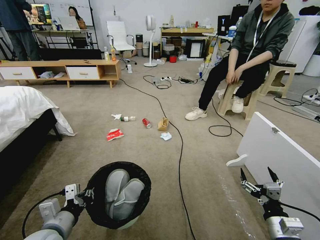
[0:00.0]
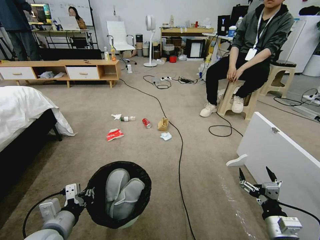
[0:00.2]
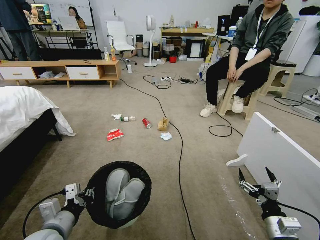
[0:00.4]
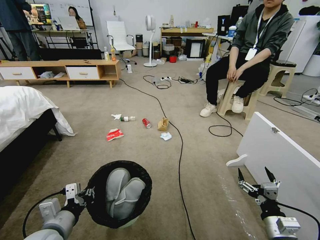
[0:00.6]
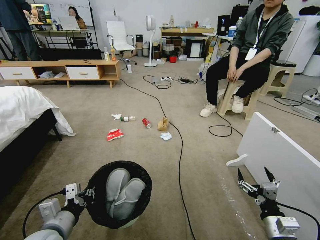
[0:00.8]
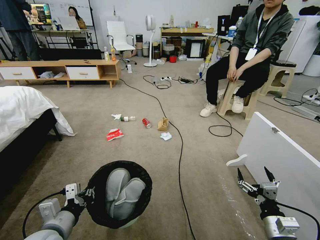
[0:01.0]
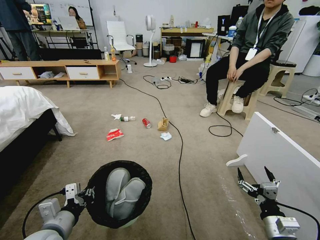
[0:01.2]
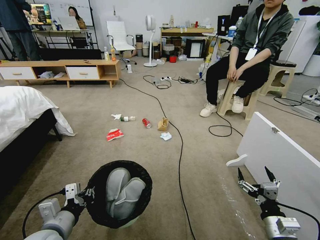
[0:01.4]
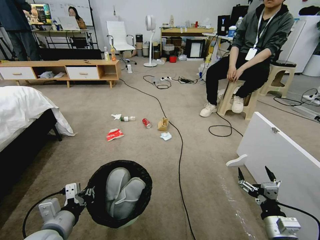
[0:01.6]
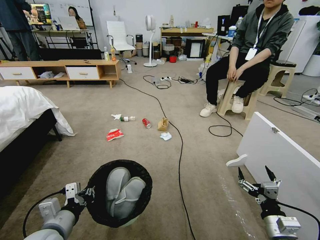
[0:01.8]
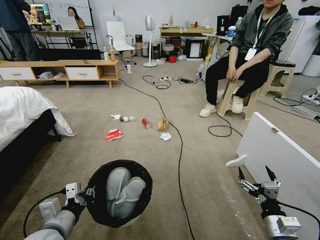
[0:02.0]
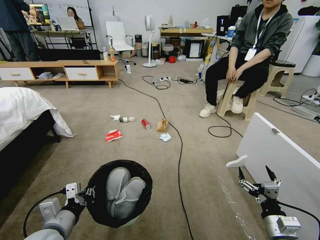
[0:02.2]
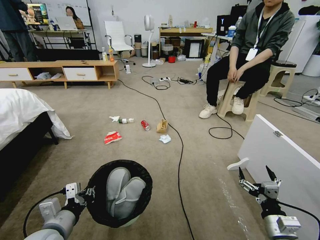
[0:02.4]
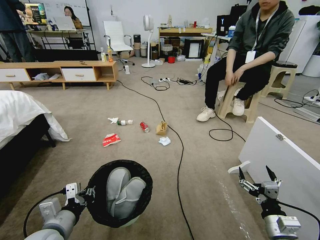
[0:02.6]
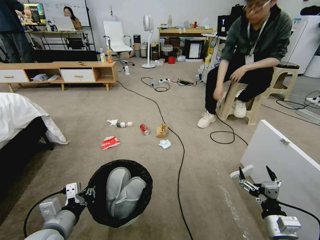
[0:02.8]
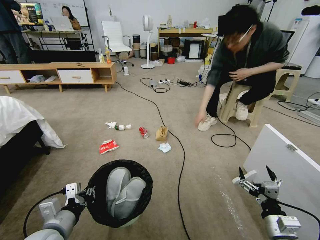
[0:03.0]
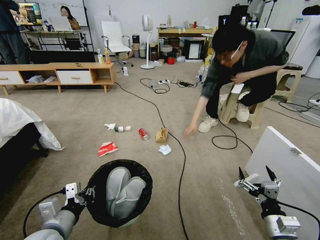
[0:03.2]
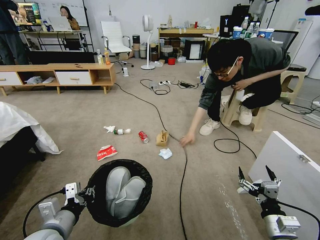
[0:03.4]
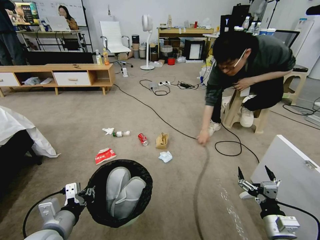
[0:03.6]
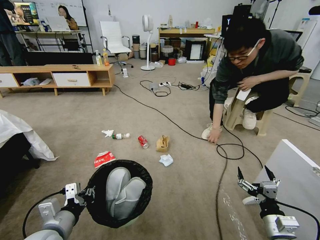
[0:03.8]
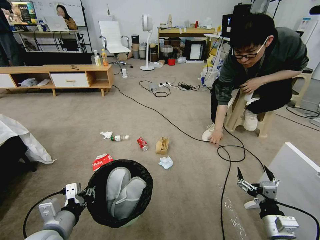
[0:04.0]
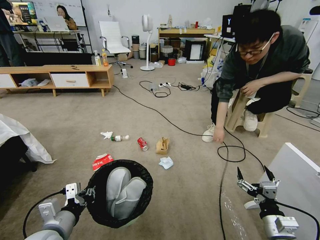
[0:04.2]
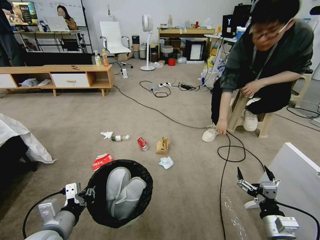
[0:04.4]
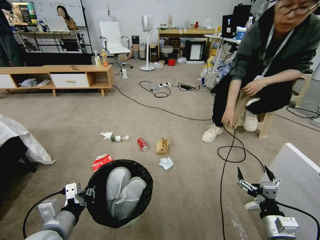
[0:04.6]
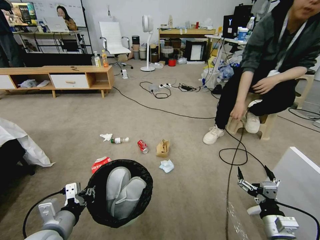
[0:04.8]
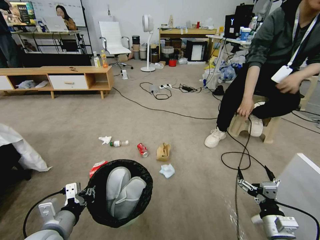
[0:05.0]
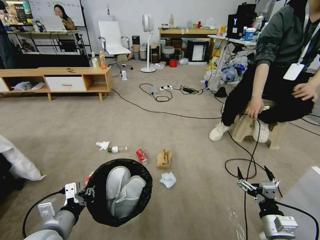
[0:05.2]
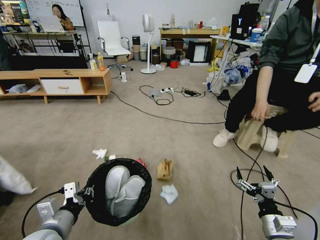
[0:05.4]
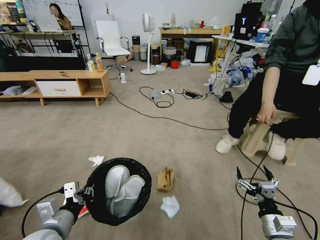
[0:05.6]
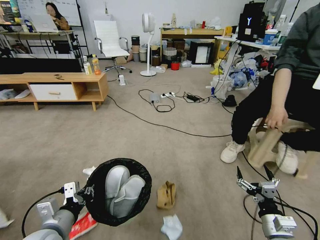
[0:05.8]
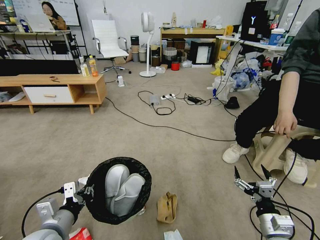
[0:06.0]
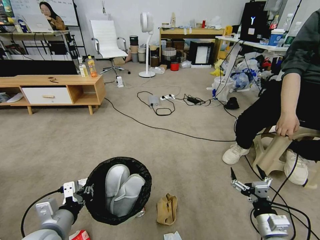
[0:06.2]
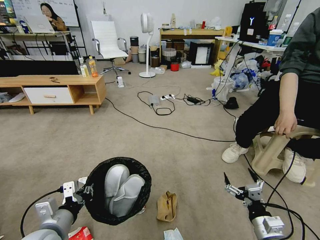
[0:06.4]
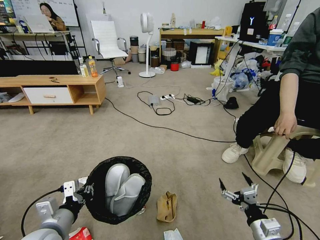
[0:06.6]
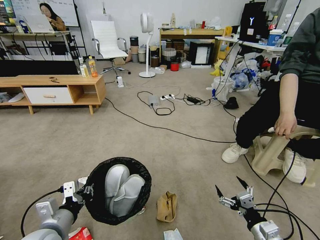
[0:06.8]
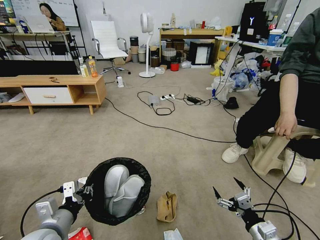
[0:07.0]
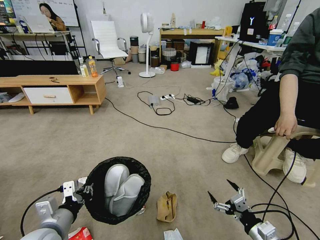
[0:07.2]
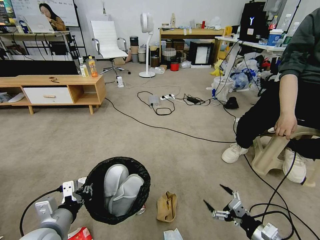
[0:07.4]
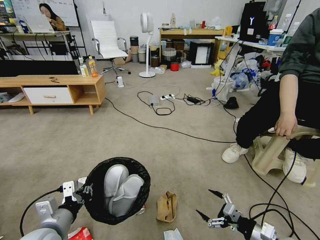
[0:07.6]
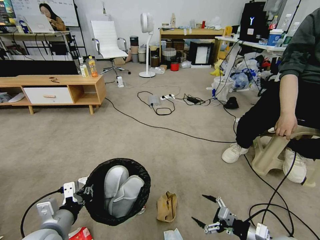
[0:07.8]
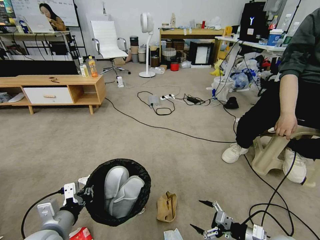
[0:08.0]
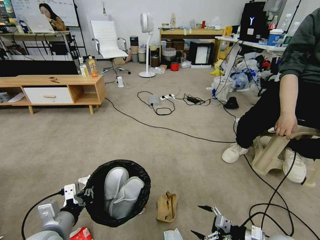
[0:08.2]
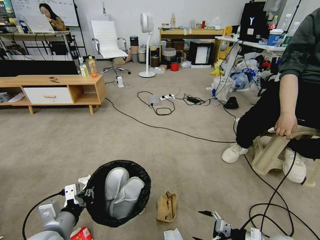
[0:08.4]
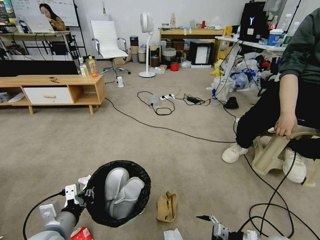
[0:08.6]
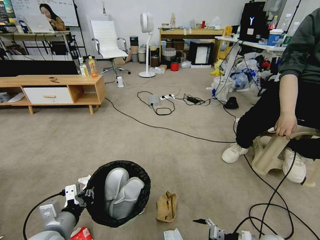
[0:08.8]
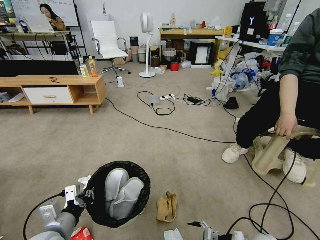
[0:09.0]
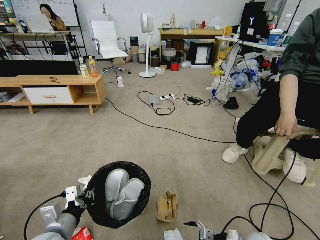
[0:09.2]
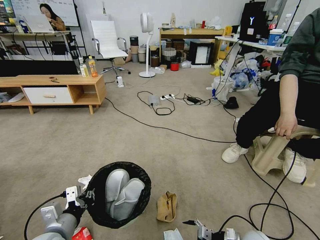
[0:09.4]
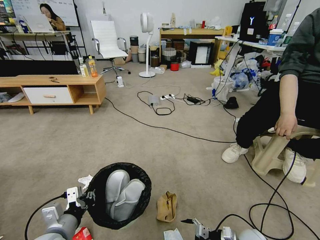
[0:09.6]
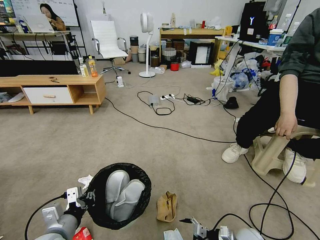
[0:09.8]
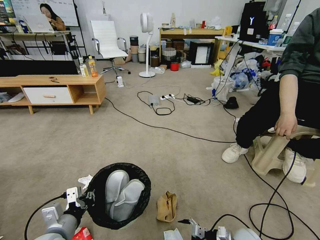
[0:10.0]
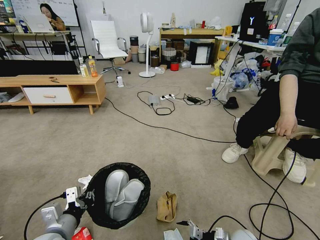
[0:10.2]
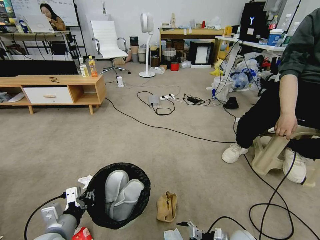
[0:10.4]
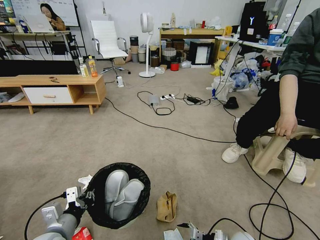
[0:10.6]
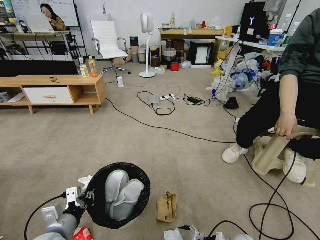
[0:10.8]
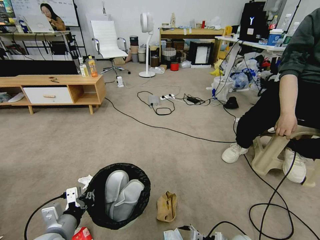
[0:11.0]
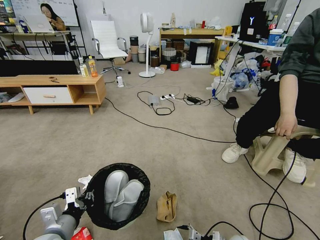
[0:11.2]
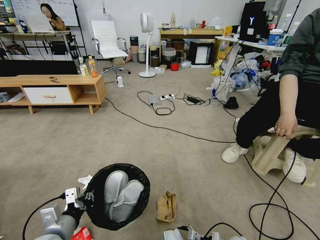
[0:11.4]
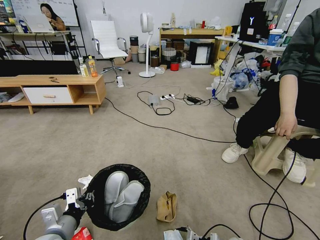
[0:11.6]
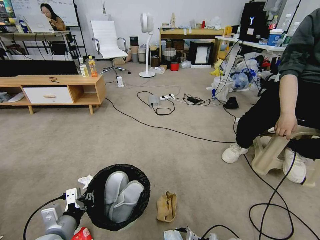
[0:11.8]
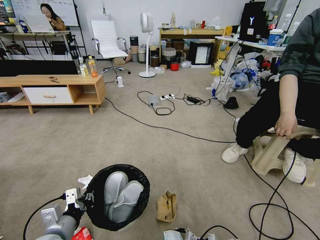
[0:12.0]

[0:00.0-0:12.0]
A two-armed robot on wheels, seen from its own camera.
Task of the whole recording: Pick up the trash bin and place the garbage on the floor into it.
0:07.6 to 0:09.0: The right gripper is displaced downward by about 10 cm.
0:09.0 to 0:10.4: The right gripper heads downward, covering approximately 5 cm.
0:10.4 to 0:12.0: The right gripper moves downward, some 5 cm.

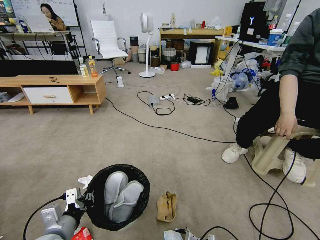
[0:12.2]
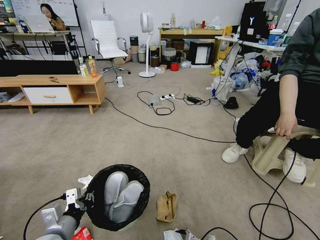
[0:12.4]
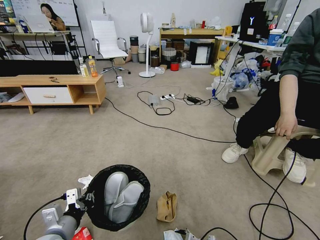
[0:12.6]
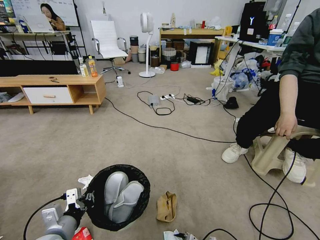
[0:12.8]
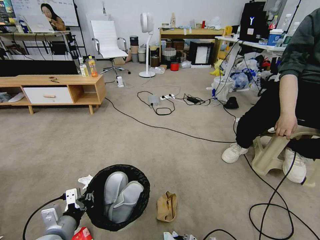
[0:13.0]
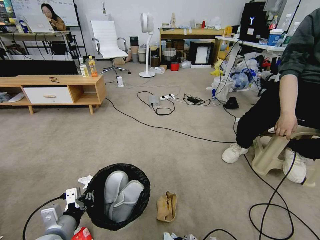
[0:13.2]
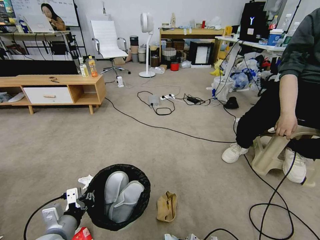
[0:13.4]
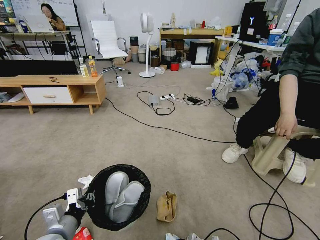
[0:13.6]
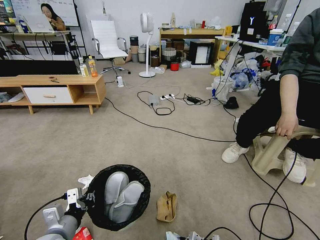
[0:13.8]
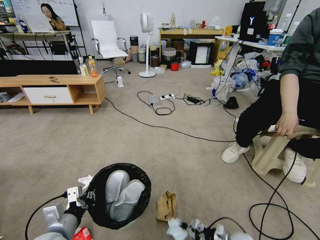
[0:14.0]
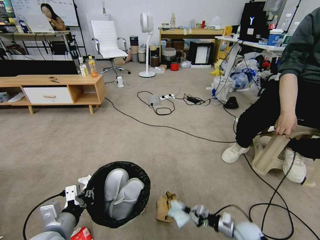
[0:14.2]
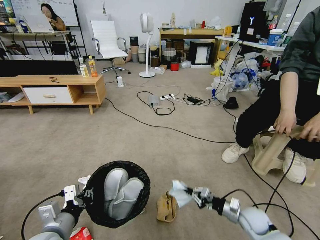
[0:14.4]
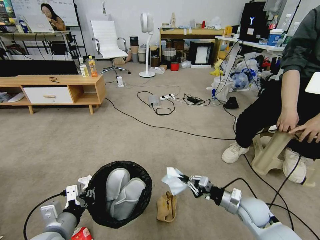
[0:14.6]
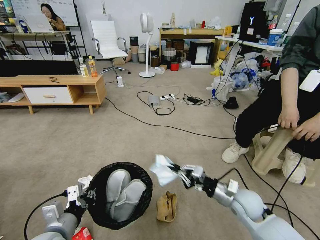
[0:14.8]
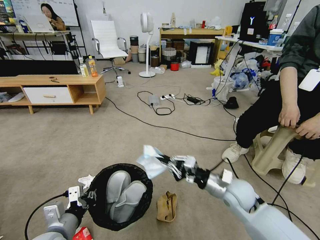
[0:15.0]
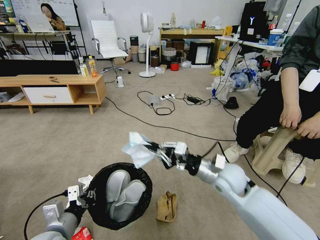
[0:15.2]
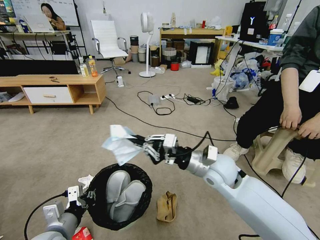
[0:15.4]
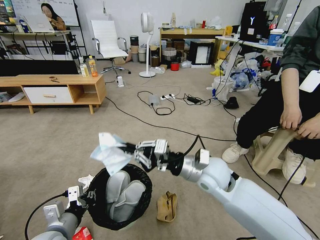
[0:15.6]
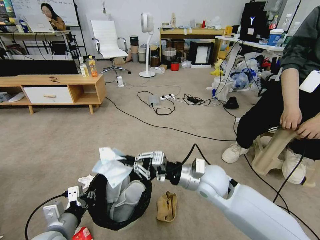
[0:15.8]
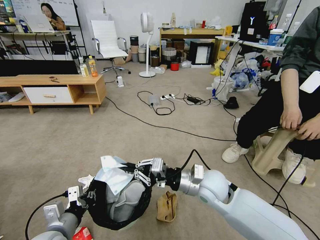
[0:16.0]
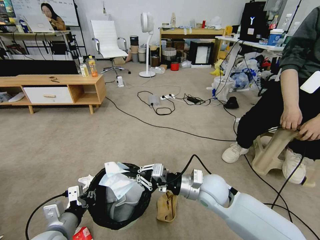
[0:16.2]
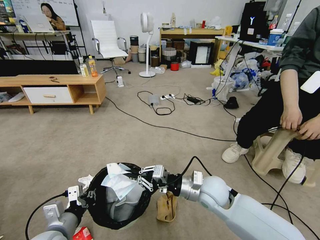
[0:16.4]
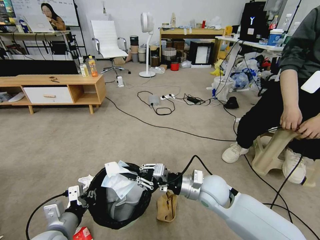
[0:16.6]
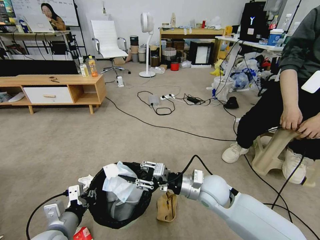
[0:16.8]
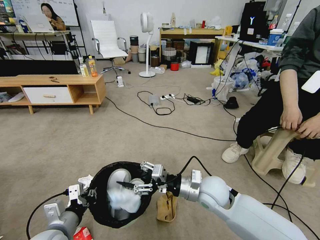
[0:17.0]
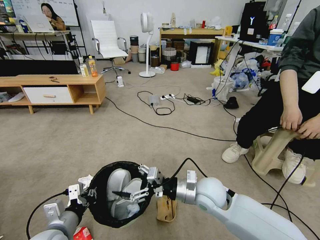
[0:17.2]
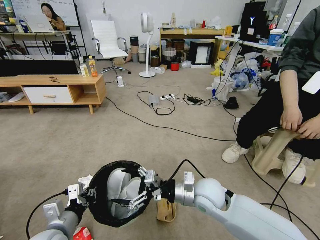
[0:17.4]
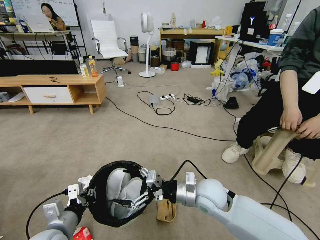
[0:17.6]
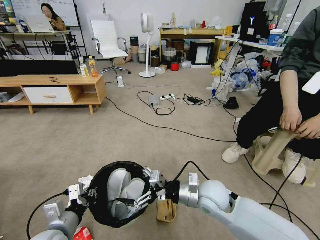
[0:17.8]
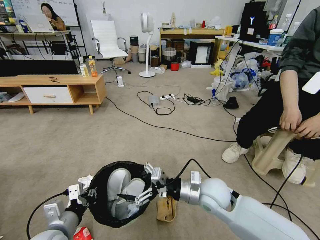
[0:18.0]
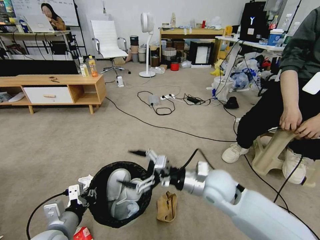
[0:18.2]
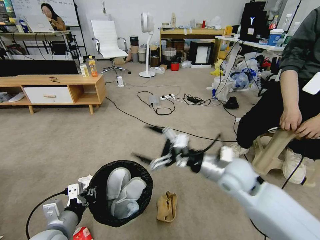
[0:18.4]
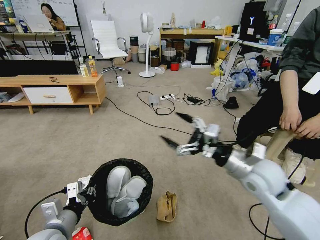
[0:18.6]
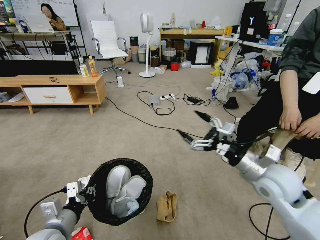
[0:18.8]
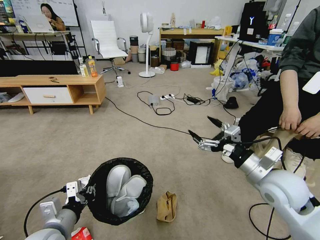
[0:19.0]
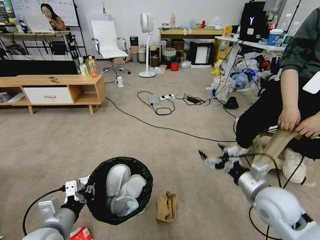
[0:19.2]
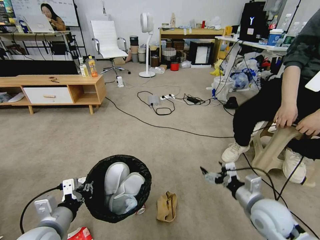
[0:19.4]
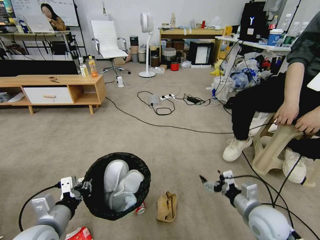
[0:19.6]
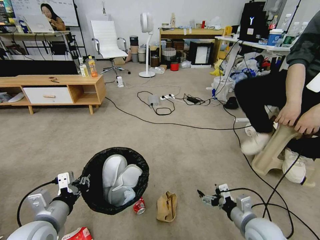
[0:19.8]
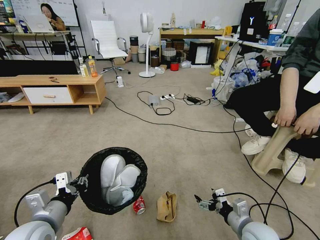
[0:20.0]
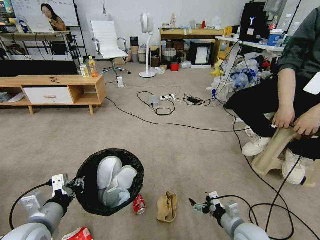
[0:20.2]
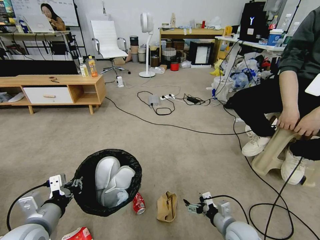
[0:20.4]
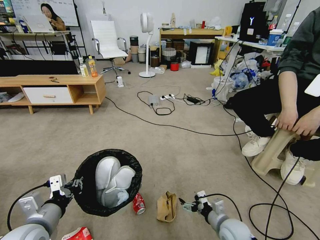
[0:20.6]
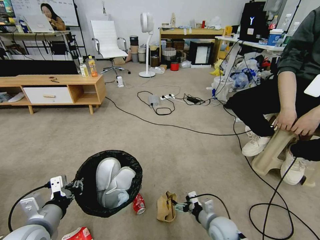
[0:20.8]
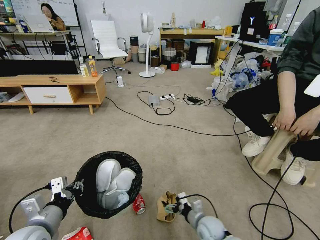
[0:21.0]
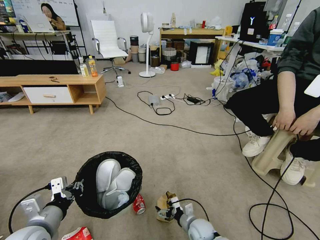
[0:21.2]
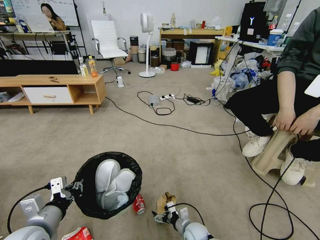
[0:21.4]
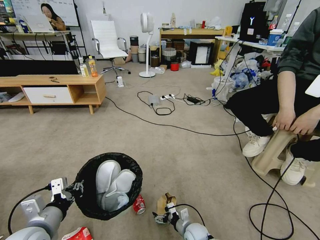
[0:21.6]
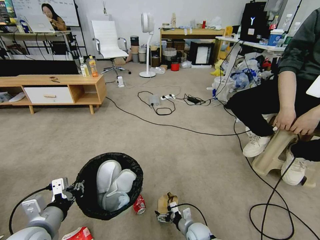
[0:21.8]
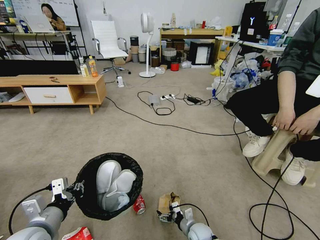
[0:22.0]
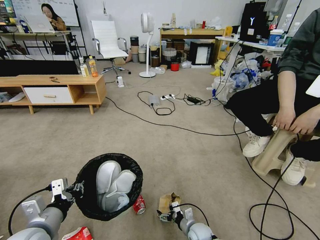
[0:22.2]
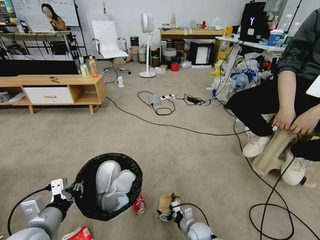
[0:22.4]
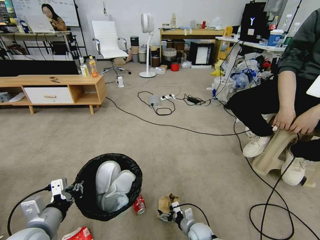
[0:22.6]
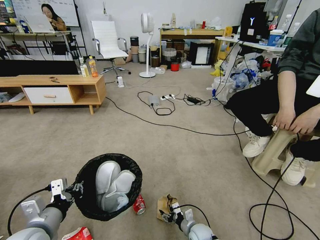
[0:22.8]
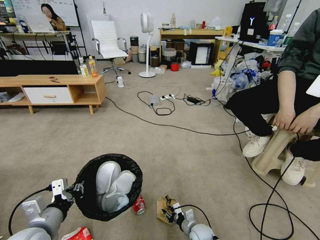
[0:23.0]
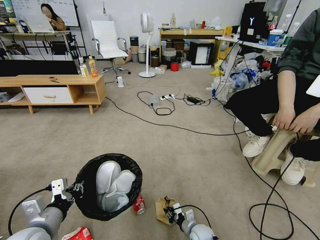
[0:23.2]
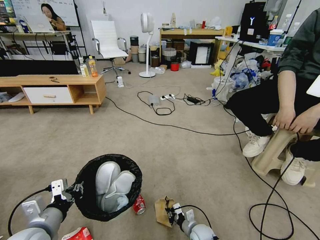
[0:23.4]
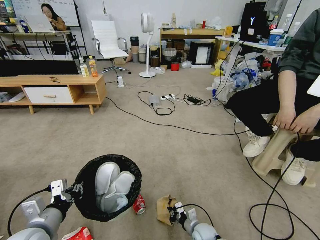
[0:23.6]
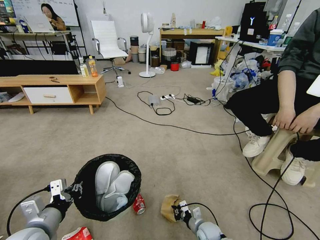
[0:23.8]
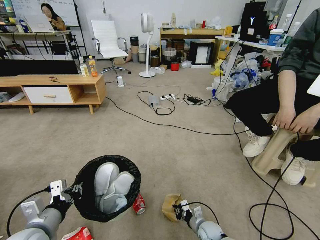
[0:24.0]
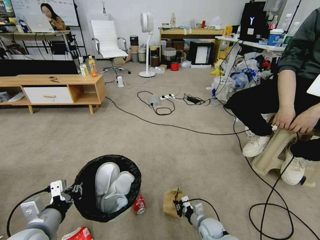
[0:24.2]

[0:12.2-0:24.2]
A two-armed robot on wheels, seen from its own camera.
Task of the whole recording: Pick up the trash bin and place the garbage on the floor into it.
0:12.2 to 0:13.8: The right gripper closes its fingers.
0:13.8 to 0:15.2: The right gripper heads upward, covering about 40 cm.
0:15.2 to 0:16.6: The right gripper moves roughly 5 cm.
0:16.6 to 0:18.2: The right gripper opens its fingers.
0:18.2 to 0:19.8: The right gripper travels to the right, downward and backward by about 20 cm.
0:19.8 to 0:21.2: The right gripper heads downward and to the left, covering about 20 cm.
0:21.2 to 0:22.6: The right gripper moves downward, approximately 5 cm.
0:22.6 to 0:24.2: The right gripper changes place by roughly 5 cm, and closes up.
